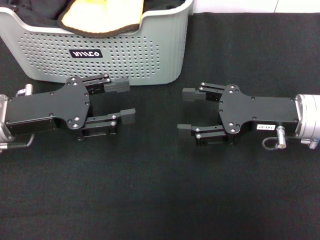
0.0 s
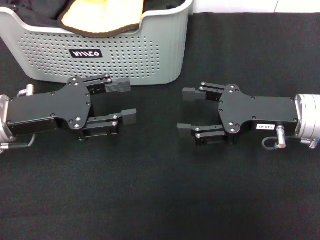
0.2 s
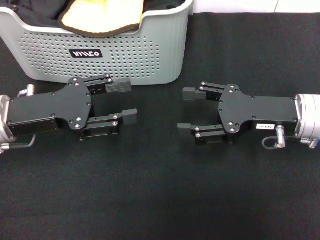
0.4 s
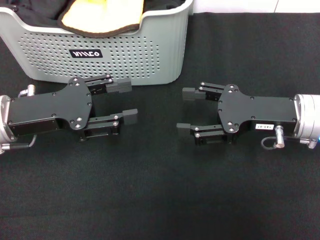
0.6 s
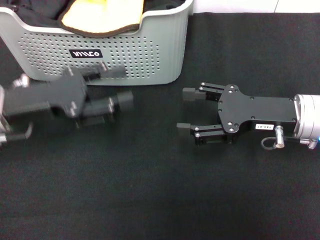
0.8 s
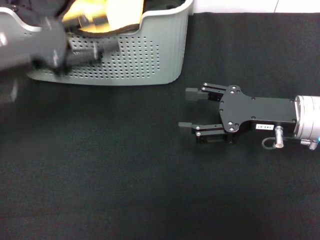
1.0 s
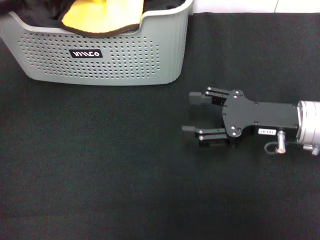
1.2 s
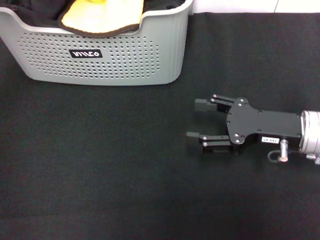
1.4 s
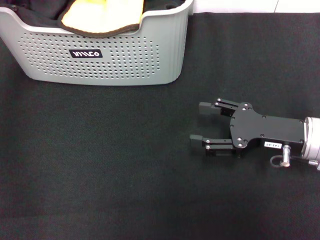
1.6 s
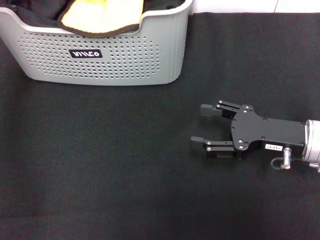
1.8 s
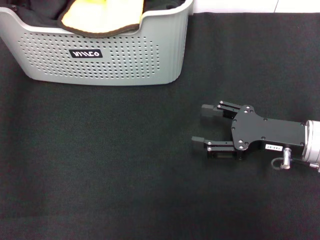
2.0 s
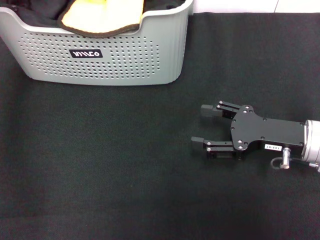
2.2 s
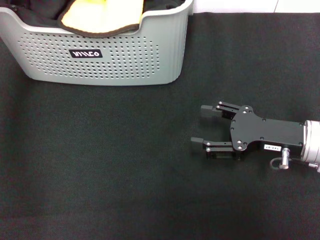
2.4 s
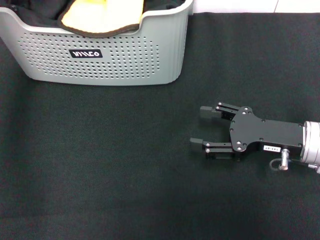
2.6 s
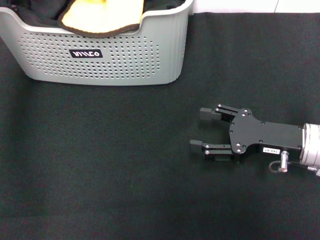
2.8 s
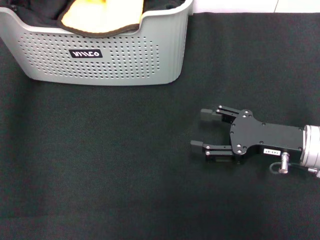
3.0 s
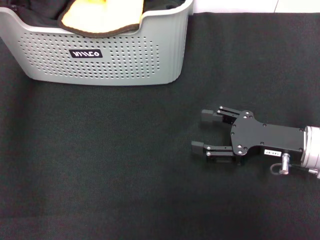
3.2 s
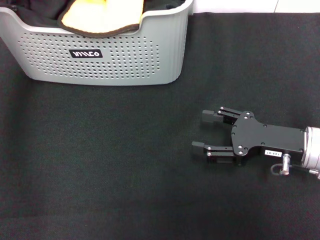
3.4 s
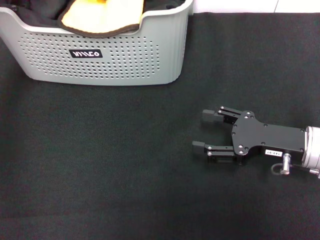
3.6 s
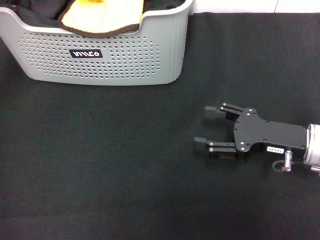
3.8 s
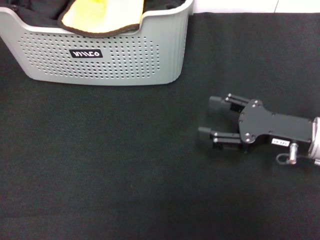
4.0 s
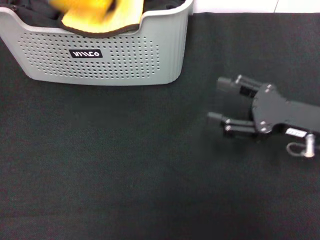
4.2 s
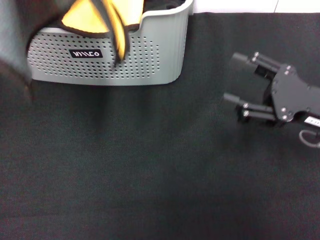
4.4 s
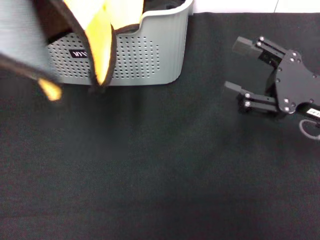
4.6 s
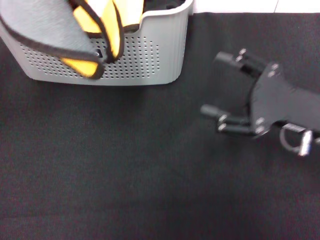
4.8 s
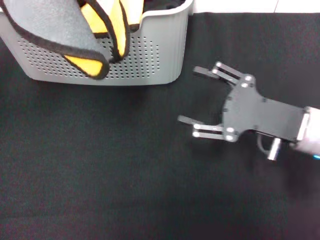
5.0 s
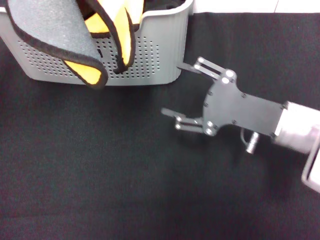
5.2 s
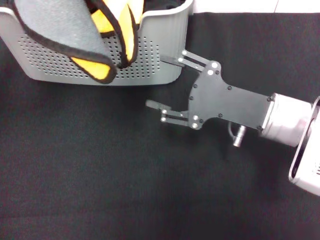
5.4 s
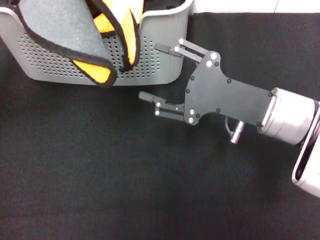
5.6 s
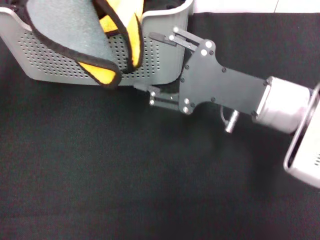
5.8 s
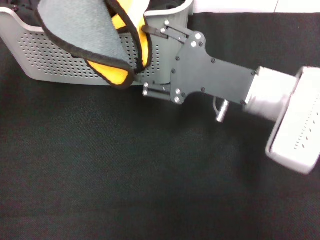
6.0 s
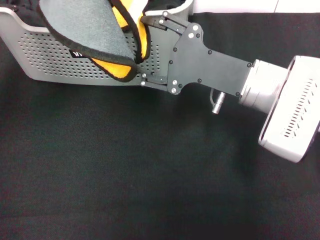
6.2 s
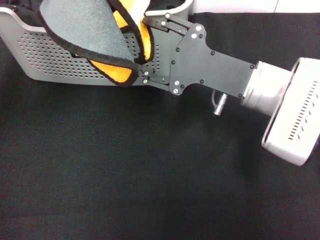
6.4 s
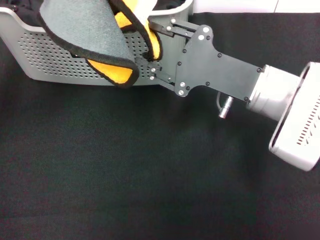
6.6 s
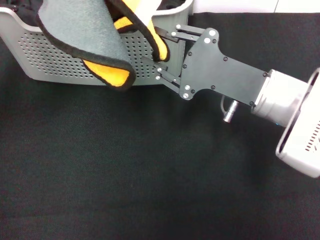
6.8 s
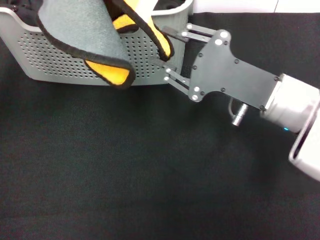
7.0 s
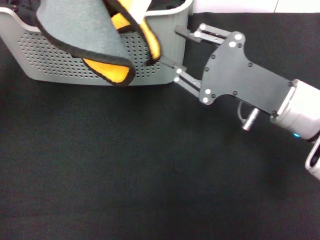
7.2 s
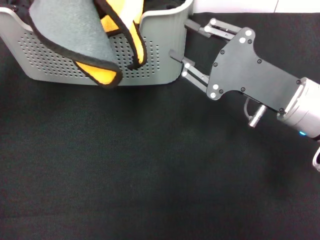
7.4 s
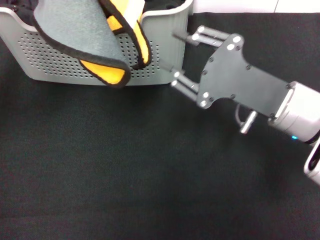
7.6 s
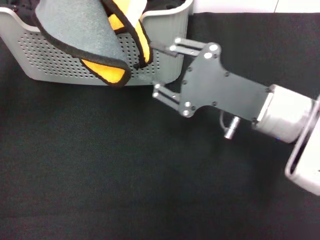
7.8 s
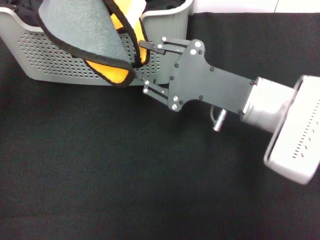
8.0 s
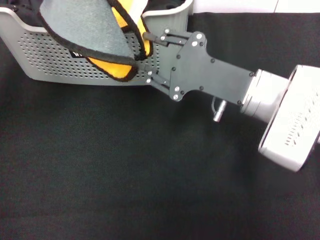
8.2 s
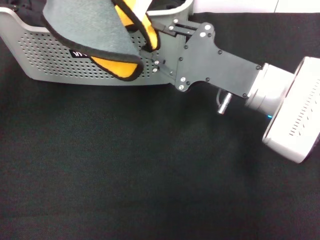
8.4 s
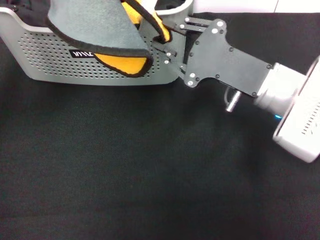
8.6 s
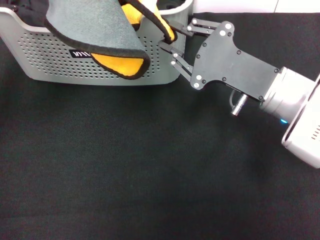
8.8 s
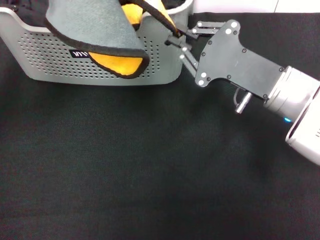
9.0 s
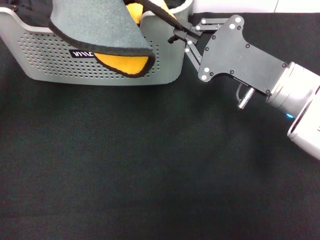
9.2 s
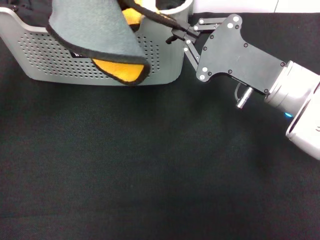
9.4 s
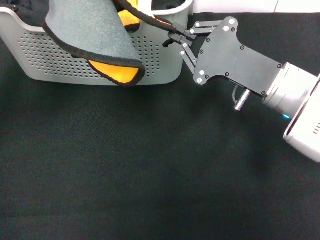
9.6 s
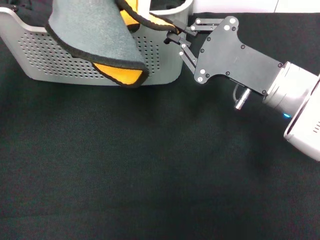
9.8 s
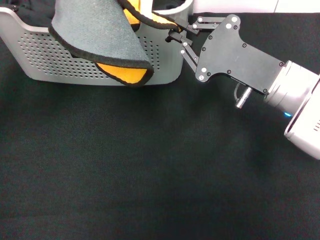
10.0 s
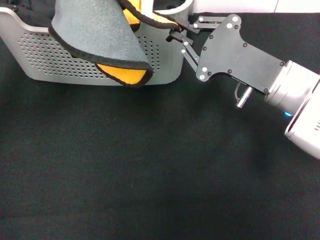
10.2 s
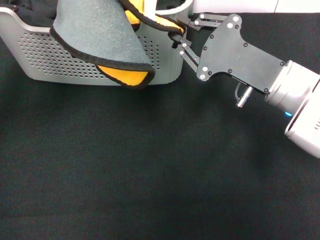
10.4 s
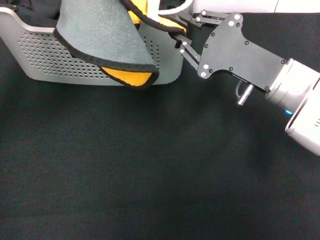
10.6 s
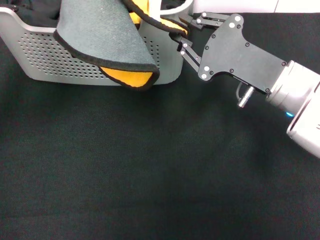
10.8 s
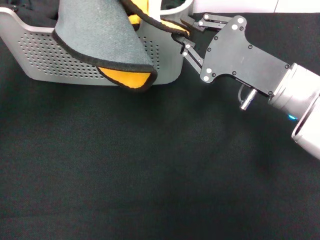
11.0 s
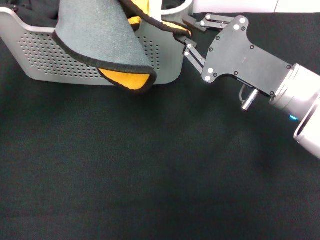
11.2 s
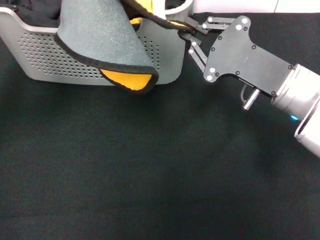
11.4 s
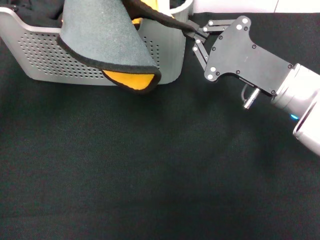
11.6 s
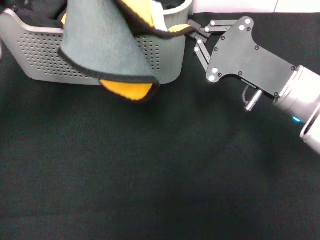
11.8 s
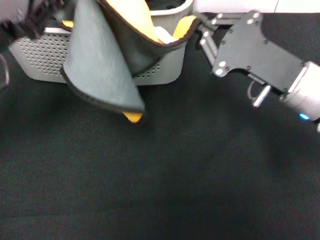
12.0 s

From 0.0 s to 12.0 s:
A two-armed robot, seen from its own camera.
Task of the whole recording: pick up the towel from the storage box and lay it flat on the black tablecloth.
Step, from 0.0 s to 3.0 s: Pick up a towel with the left gripper.
Step, from 3.2 s to 9.0 s: Spread the towel flat with the left gripper.
From 0.0 s to 1.6 s: The left gripper goes about 20 cm upward and forward.
From 1.6 s to 3.0 s: There are only small adjustments of the grippers.
From 3.0 s to 4.4 s: The right gripper changes place by about 5 cm. Meanwhile the left gripper moves backward, some 15 cm, and closes up.
From 4.4 s to 6.0 s: The left gripper ends up roughly 5 cm from where it was. Meanwhile the right gripper travels to the left by roughly 10 cm.
From 6.0 s to 7.6 s: The right gripper closes up.
From 7.6 s to 9.0 s: The grippers move only a little.
From 9.0 s to 10.4 s: The two grippers keep their place.
From 10.4 s to 12.0 s: The left gripper is displaced downward by approximately 5 cm.

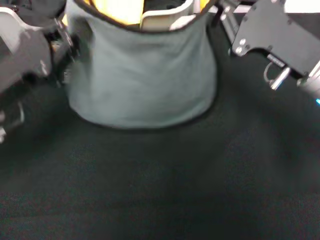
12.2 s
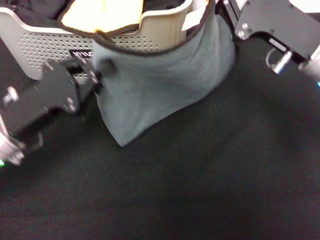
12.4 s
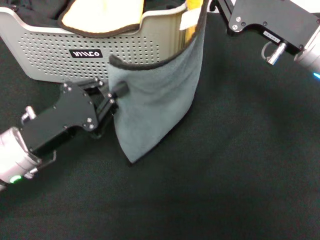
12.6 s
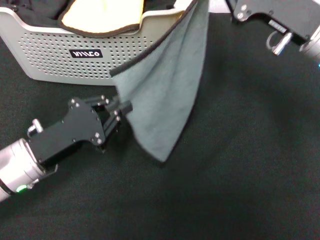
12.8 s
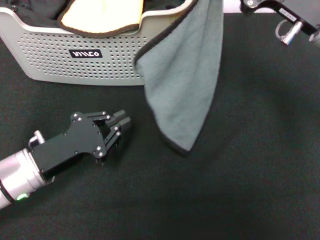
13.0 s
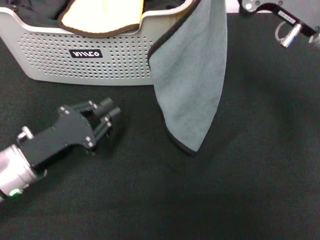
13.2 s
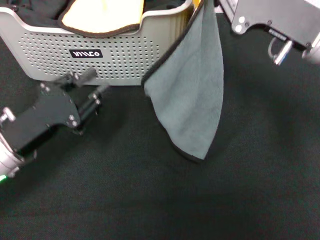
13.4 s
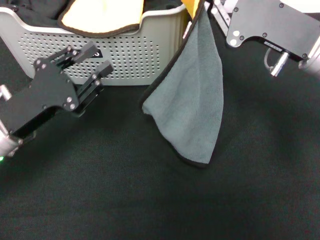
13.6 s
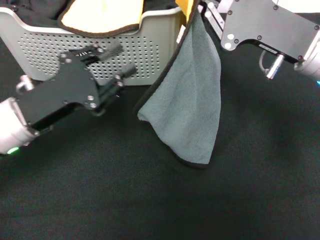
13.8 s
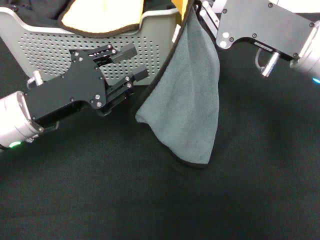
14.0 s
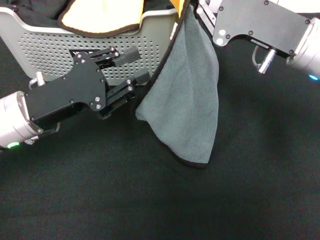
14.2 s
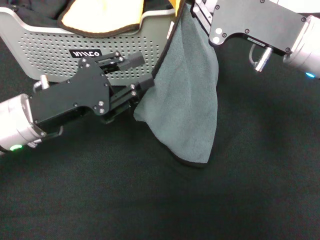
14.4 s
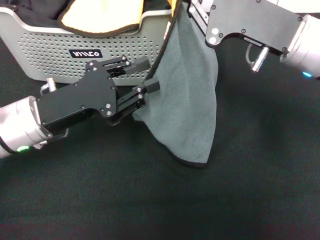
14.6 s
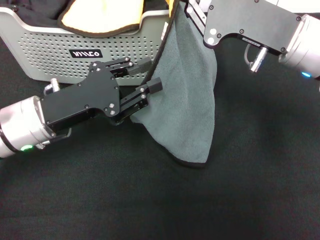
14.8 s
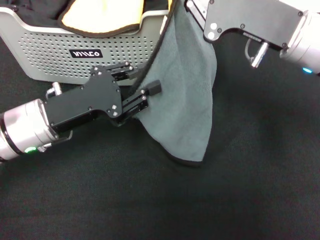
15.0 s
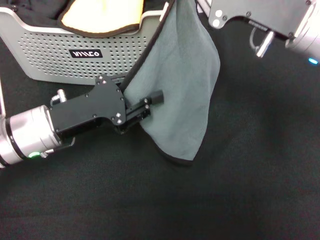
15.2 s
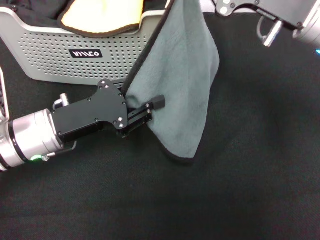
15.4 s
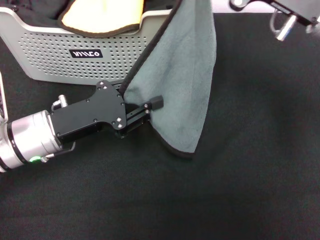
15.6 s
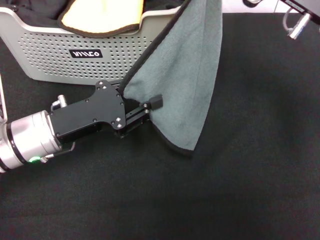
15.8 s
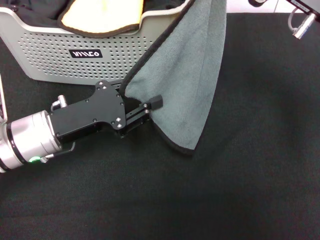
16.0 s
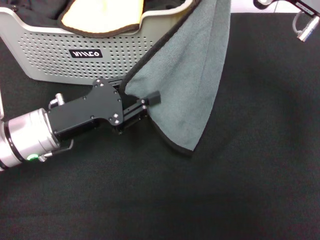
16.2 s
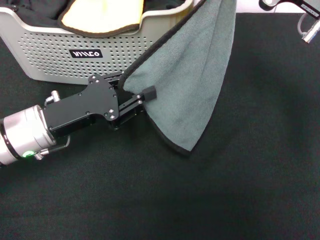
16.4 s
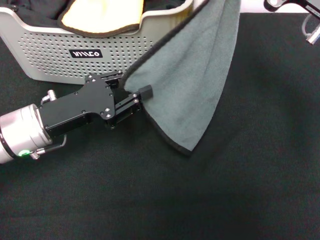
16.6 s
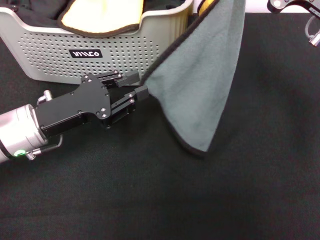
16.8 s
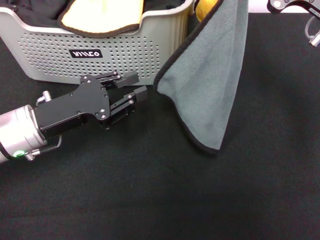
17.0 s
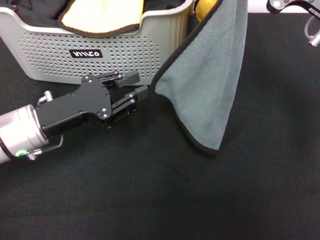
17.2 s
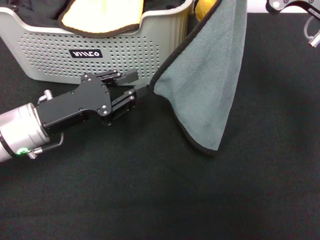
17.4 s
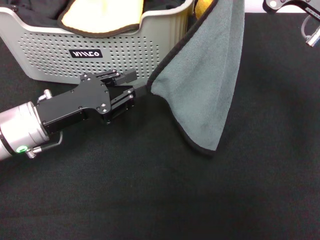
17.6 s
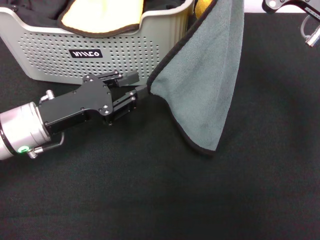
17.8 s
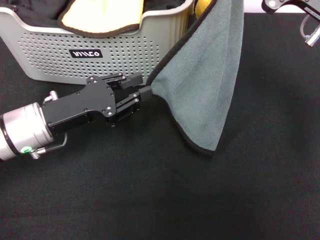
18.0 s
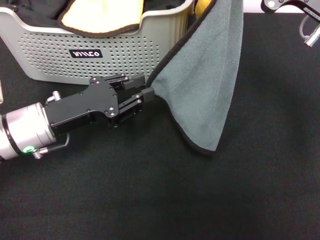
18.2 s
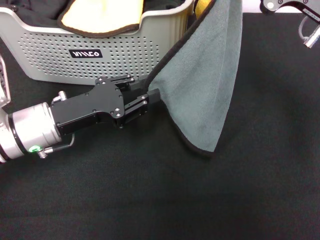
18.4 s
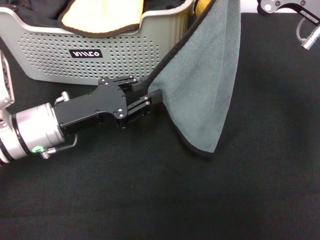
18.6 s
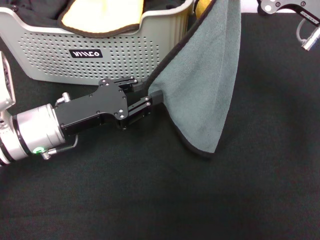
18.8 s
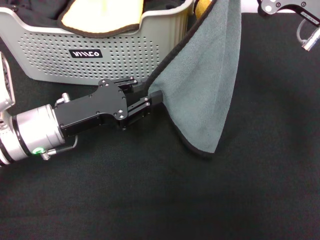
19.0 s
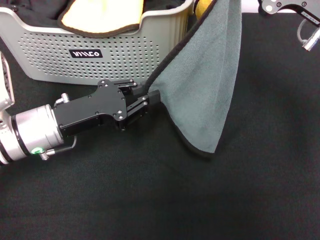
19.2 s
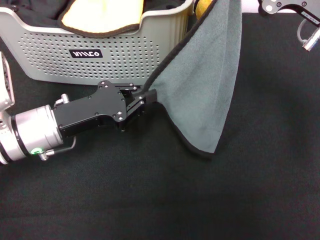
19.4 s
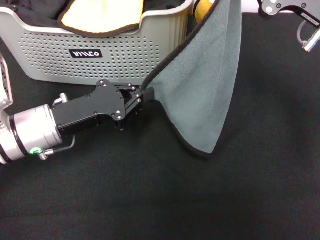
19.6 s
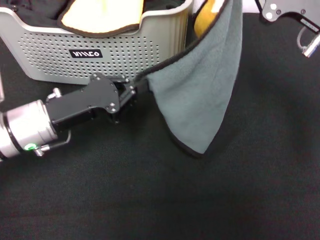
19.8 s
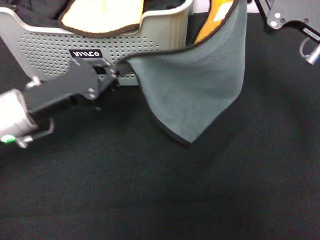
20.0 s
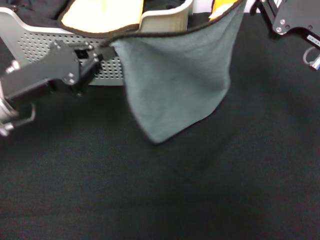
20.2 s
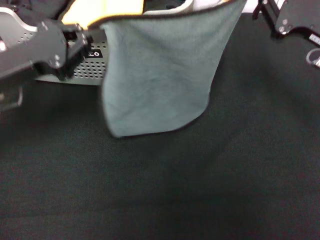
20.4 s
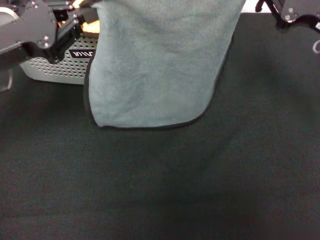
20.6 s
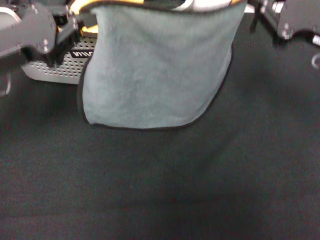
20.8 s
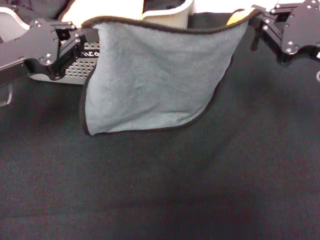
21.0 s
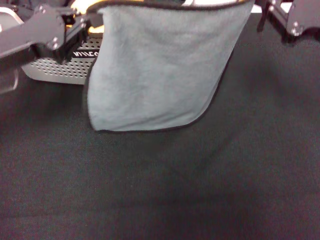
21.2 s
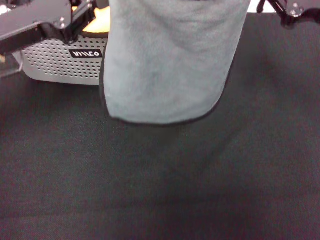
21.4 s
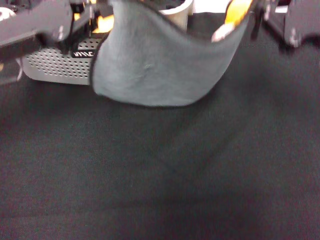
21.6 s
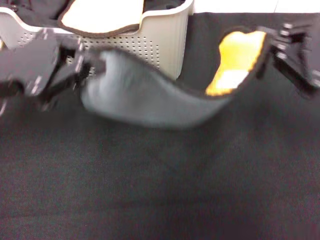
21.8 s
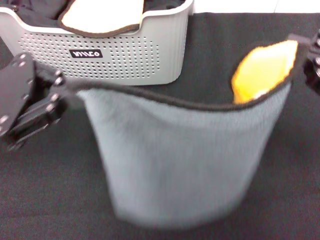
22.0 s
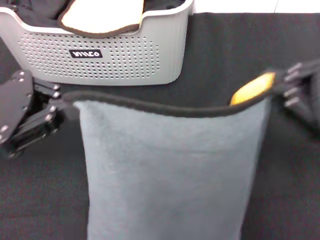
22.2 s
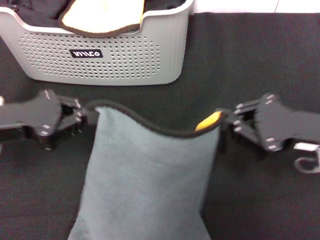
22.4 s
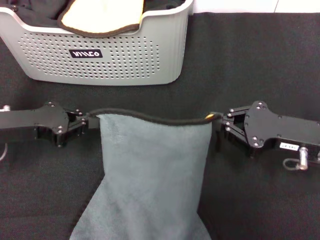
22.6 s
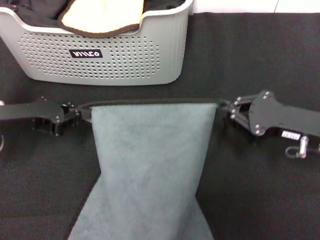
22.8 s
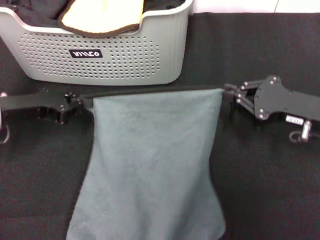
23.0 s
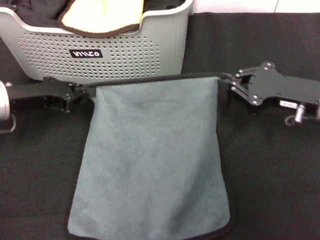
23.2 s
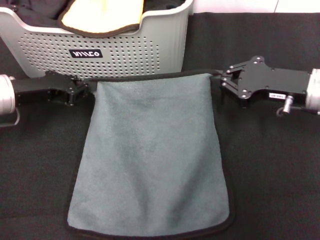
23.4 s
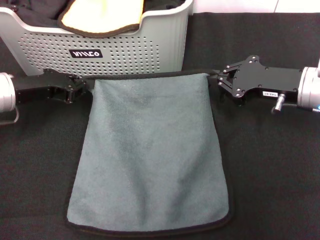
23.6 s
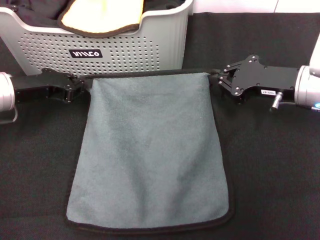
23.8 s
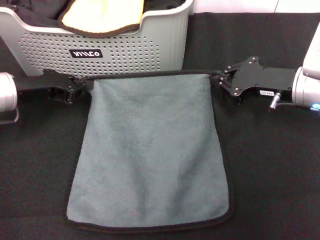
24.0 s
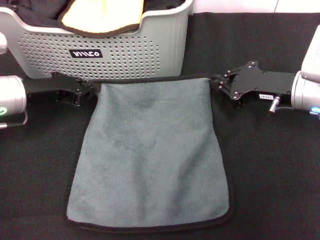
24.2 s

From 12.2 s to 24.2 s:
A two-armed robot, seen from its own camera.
Task of the whole recording: pick up the towel from the storage box and lay it flat on the black tablecloth.
From 12.2 s to 13.8 s: The left gripper goes downward and returns, roughly 10 cm each way, and opens.
From 15.2 s to 16.6 s: The right gripper goes roughly 5 cm to the right.
From 16.6 s to 18.2 s: The two grippers keep their place.
From 18.2 s to 19.8 s: The left gripper closes.
From 19.8 s to 21.2 s: The left gripper shifts some 10 cm upward.
From 21.2 s to 22.6 s: The left gripper is displaced downward by about 5 cm. The right gripper shifts approximately 10 cm downward and backward.
From 22.6 s to 24.2 s: The two grippers go roughly 5 cm forward.
